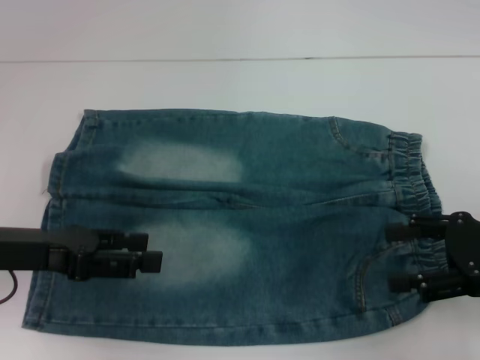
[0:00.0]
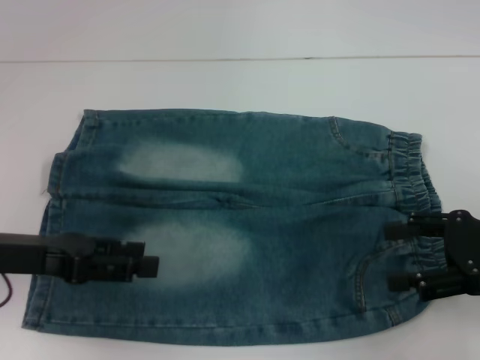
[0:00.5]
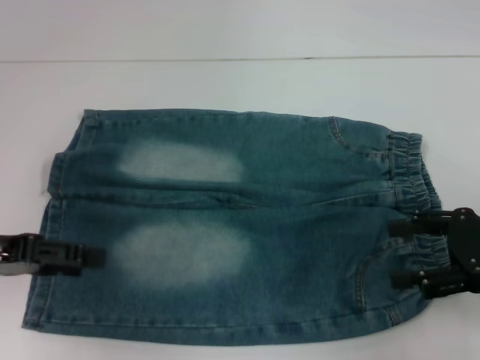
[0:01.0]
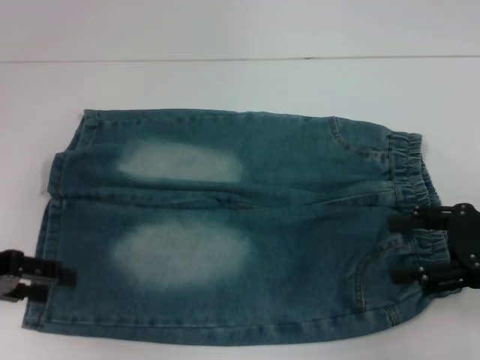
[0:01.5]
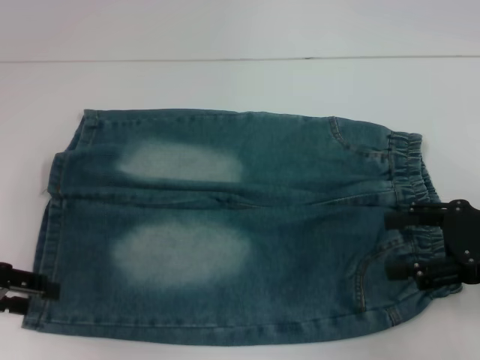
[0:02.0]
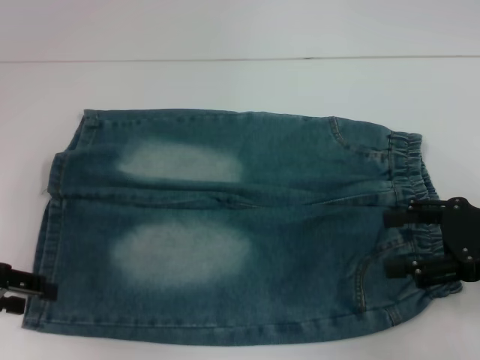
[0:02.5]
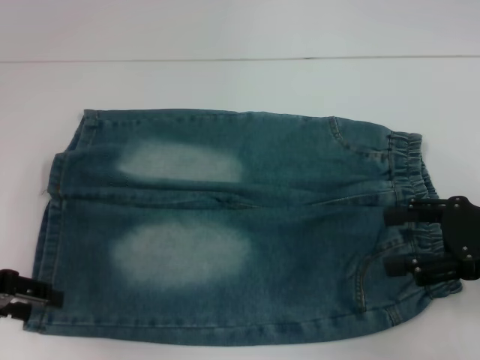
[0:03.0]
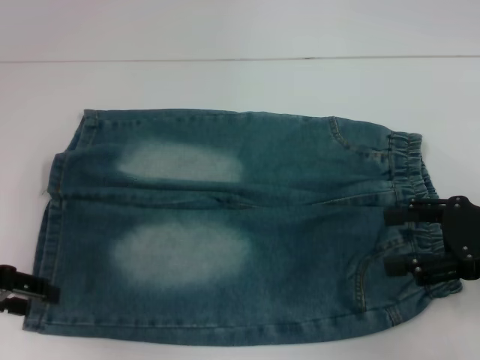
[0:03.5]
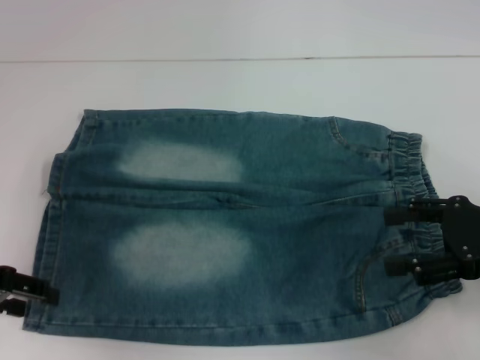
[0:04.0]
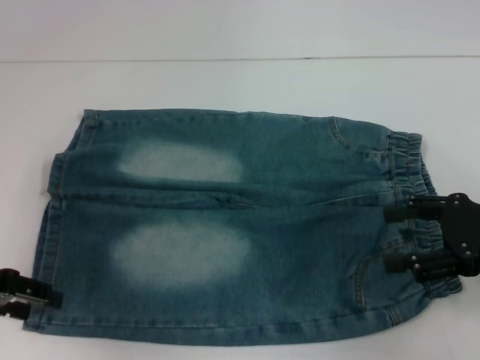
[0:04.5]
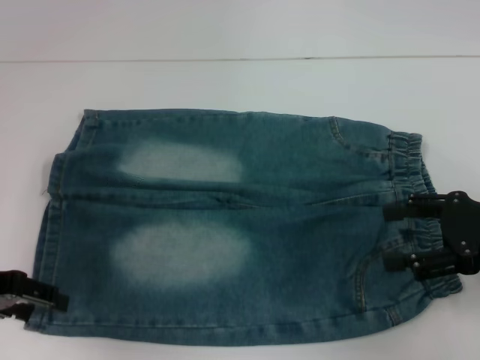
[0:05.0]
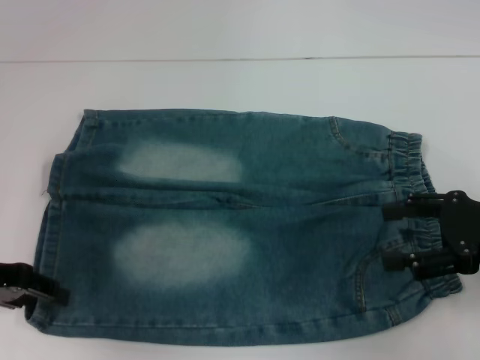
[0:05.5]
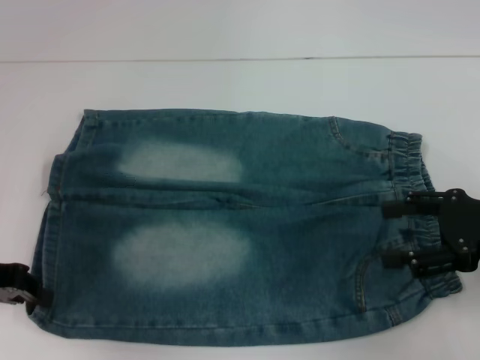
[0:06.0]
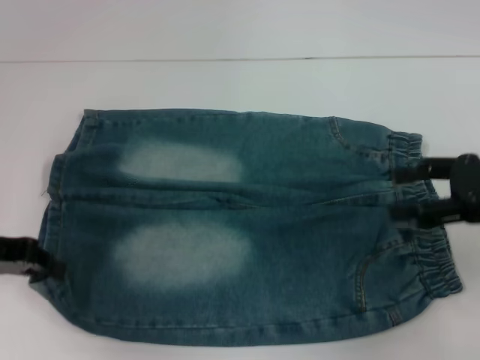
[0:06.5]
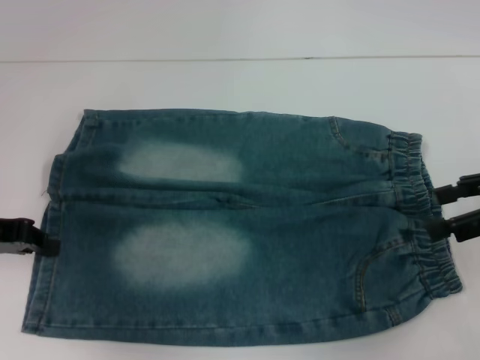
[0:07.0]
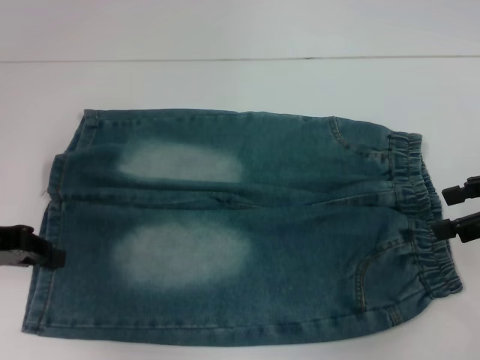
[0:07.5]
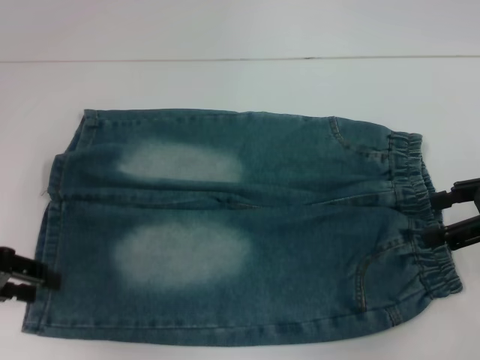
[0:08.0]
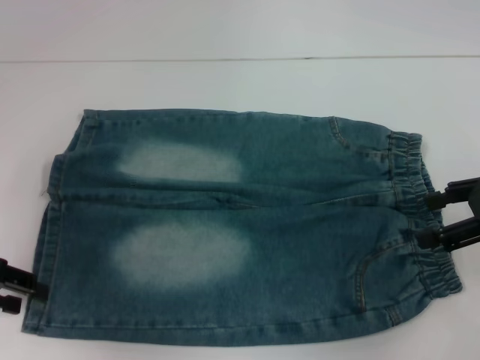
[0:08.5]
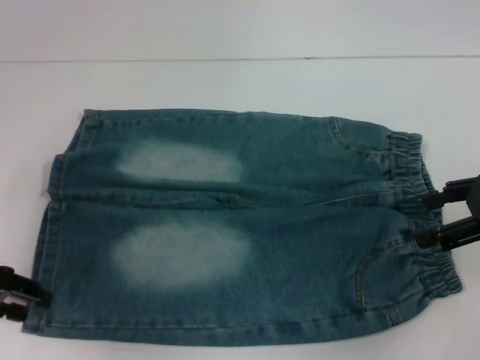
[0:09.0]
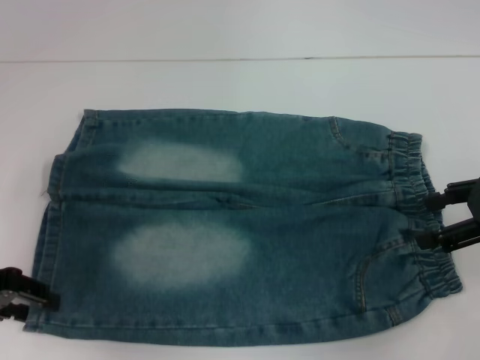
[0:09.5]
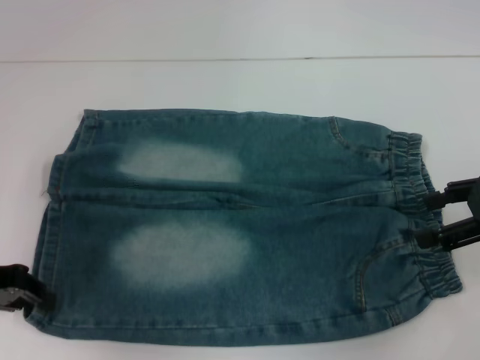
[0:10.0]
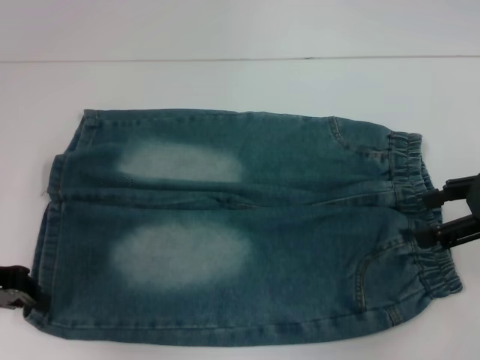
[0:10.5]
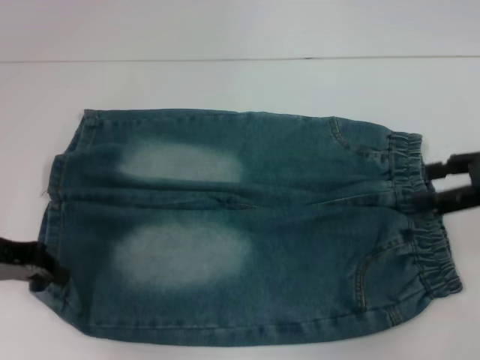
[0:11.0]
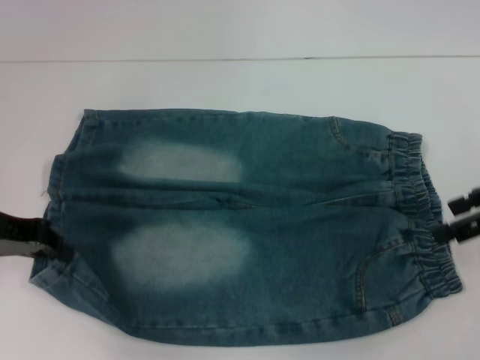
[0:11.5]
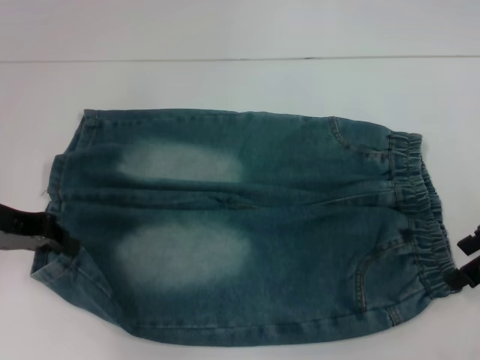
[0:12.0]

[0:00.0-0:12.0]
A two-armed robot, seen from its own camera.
Step, 0:00.0 to 0:10.5: Grab the lower left pant leg with your left hand.
0:00.0 to 0:02.0: The left gripper is displaced to the left by approximately 5 cm.
0:02.0 to 0:04.0: Both grippers stay put.
0:04.0 to 0:06.0: The left gripper closes.
0:06.0 to 0:08.0: The right gripper moves some 5 cm.
0:08.0 to 0:10.0: There are only small adjustments of the grippers.
0:10.0 to 0:12.0: The left gripper moves approximately 5 cm.

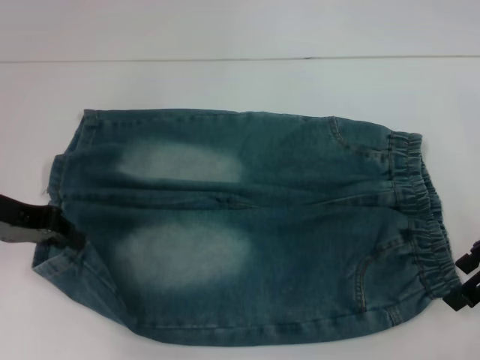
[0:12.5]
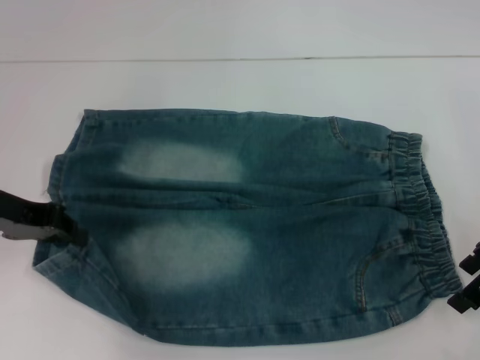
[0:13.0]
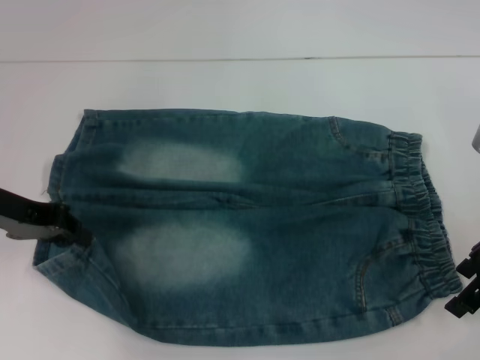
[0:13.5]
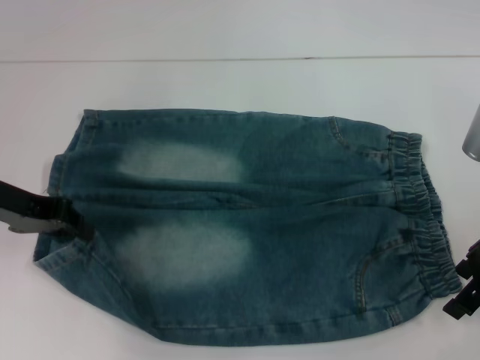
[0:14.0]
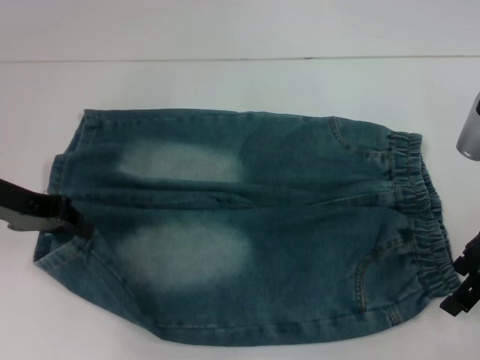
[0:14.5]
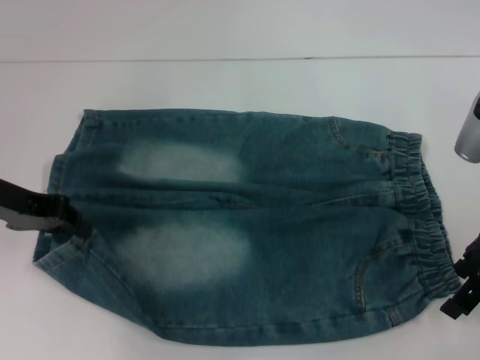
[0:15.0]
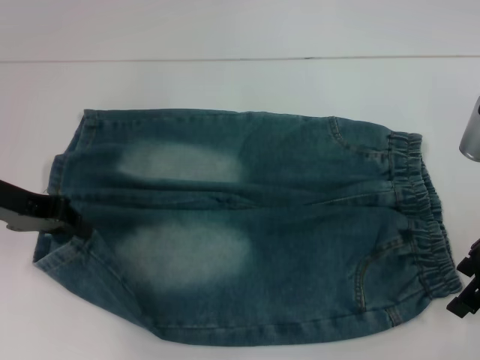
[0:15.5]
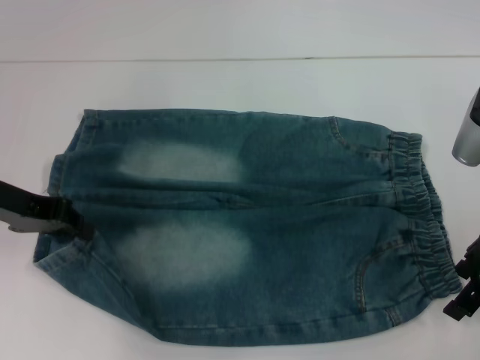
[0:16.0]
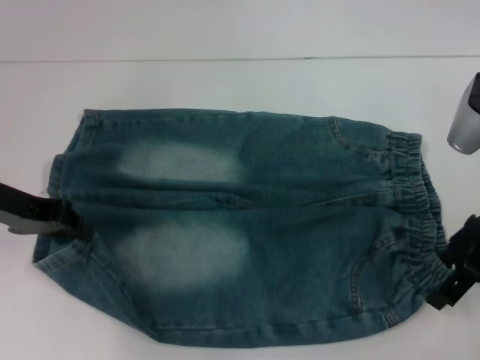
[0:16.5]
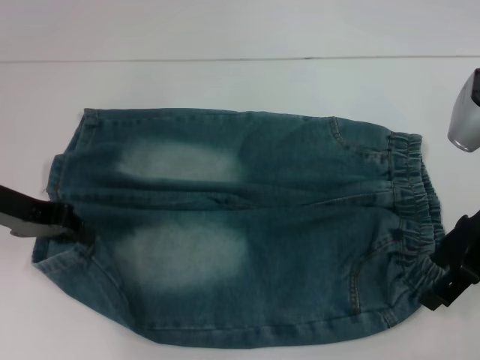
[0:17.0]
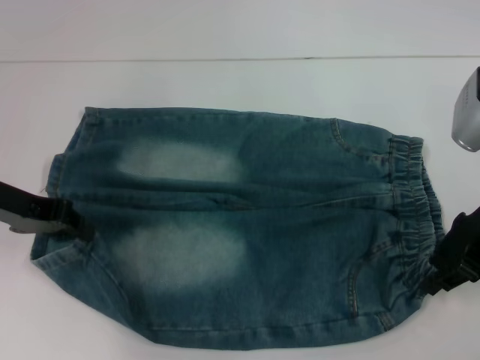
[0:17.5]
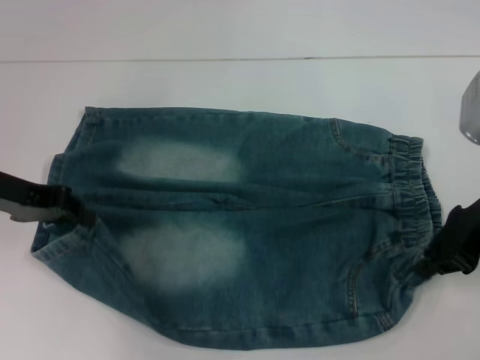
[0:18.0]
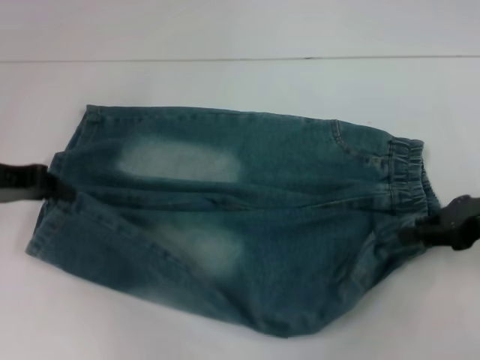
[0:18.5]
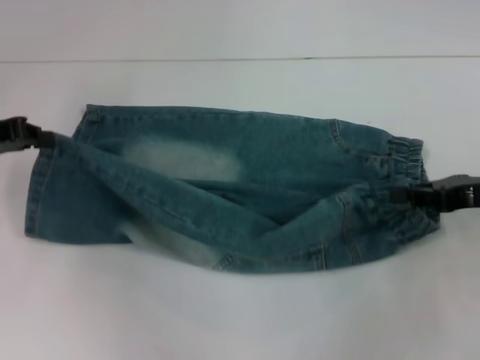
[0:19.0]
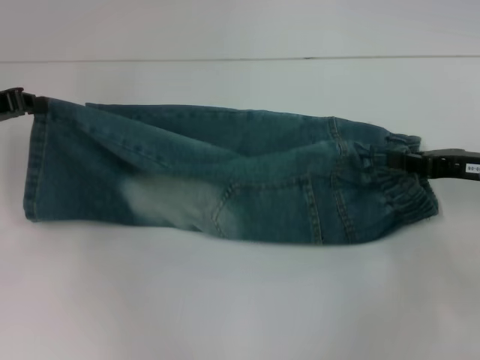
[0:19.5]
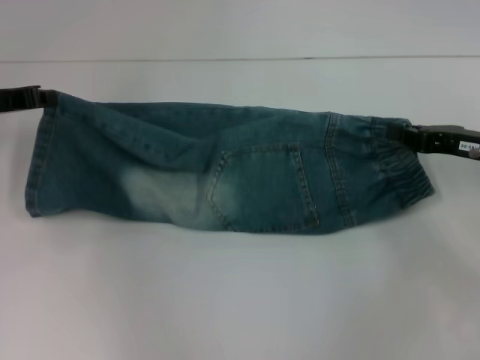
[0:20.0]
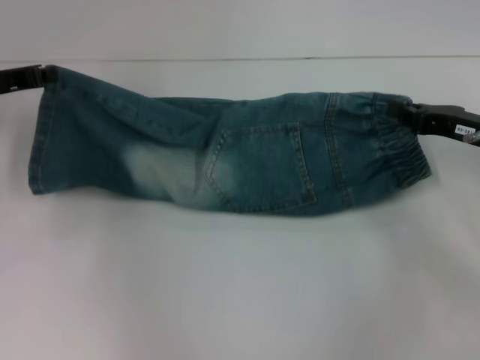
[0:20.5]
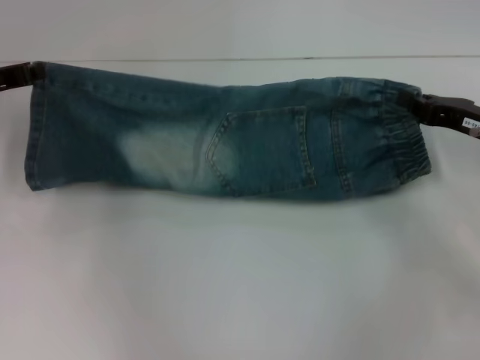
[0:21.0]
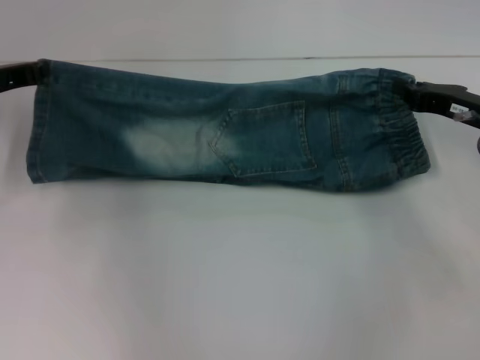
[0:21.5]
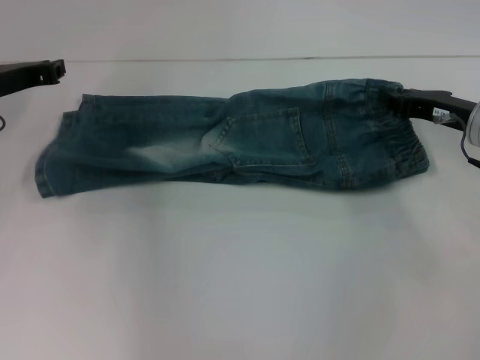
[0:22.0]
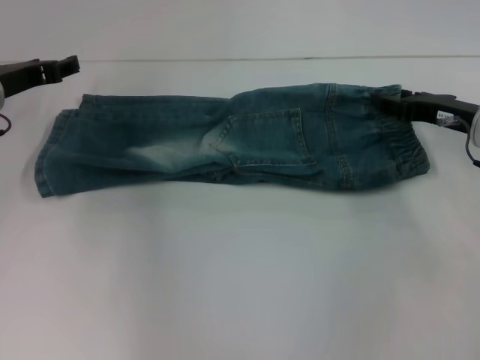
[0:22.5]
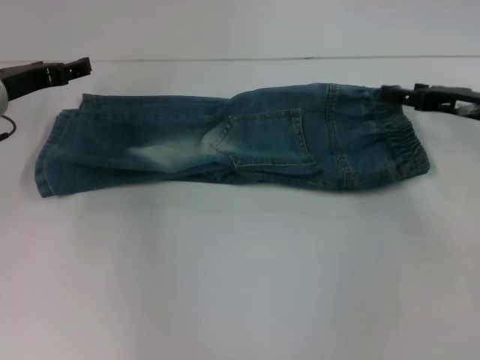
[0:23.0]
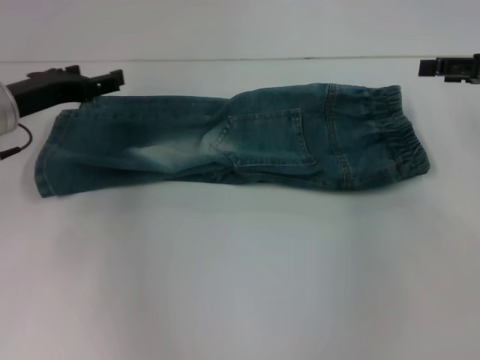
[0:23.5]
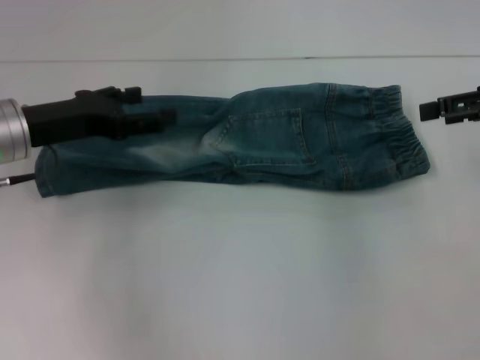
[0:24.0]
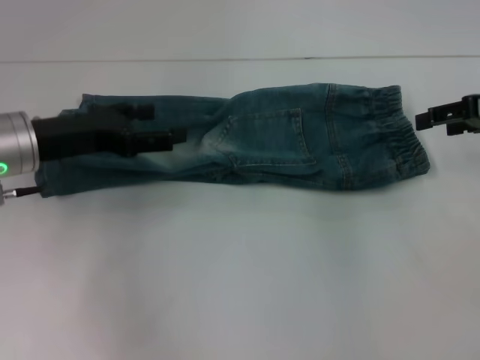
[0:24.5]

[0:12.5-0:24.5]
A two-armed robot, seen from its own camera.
Step, 0:12.5 to 0:18.0: Hold the lower right waistband with your right hand.
Step, 0:18.5 to 0:22.5: Fold upward with your right hand.
0:12.5 to 0:14.5: The grippers stay close to where they were, moving slightly.
0:14.5 to 0:16.5: The two grippers keep their place.
0:16.5 to 0:18.5: The right gripper shifts approximately 5 cm to the right, and closes up.
0:18.5 to 0:20.5: The left gripper moves forward, some 5 cm, while the right gripper changes place by about 5 cm.
0:20.5 to 0:22.5: The right gripper opens; the left gripper opens its fingers.
0:22.5 to 0:24.5: The right gripper is displaced upward by roughly 10 cm, and opens; the left gripper shifts approximately 5 cm backward, and opens its fingers.

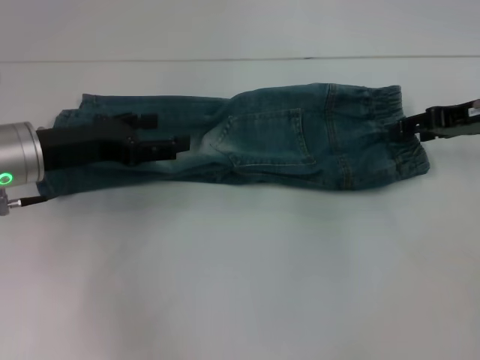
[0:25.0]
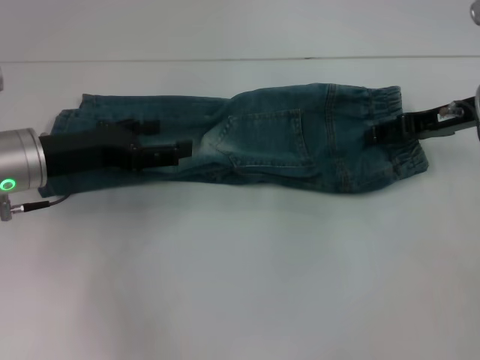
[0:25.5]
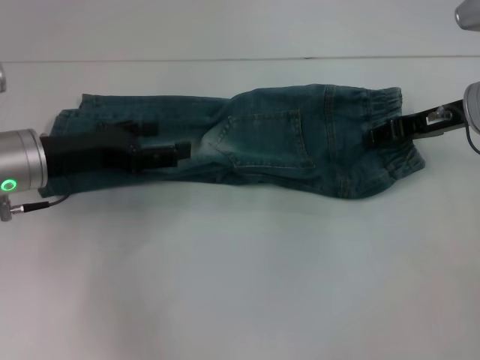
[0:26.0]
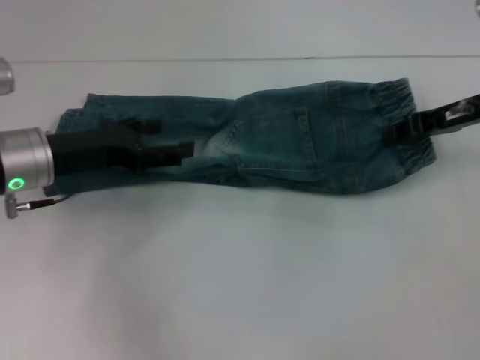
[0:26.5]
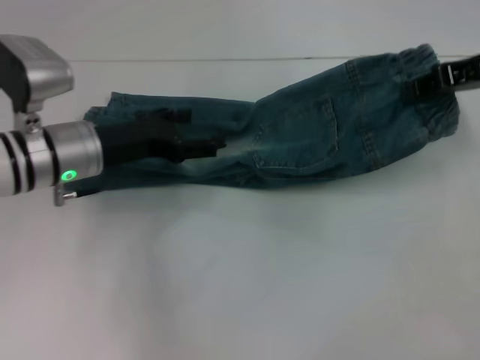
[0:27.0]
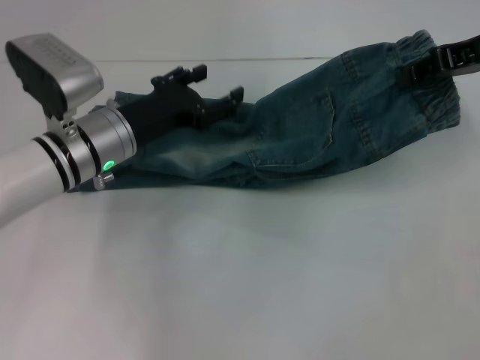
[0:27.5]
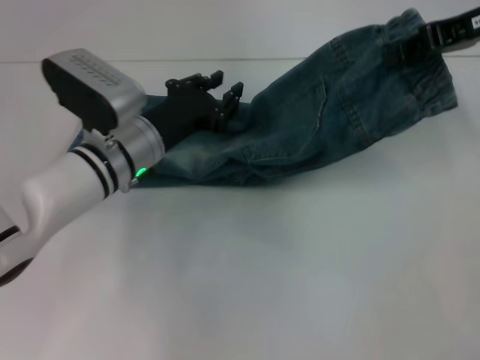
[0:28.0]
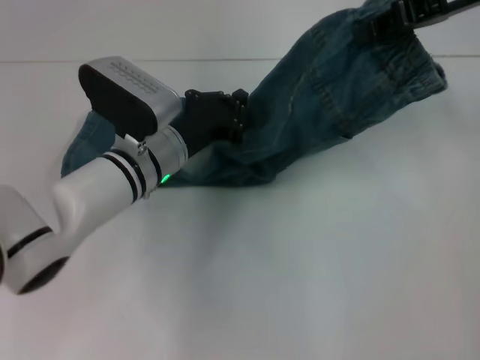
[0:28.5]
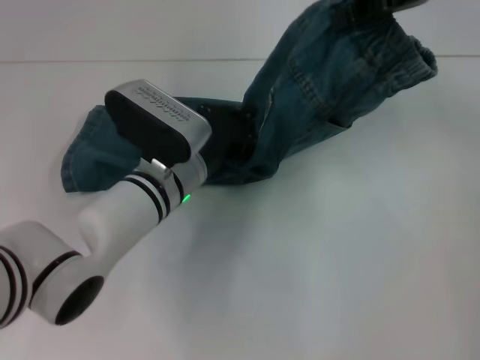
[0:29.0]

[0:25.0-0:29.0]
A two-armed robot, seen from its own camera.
0:25.0 to 0:27.0: The left gripper shifts by about 5 cm. Meanwhile the right gripper goes some 5 cm upward, and closes up.
0:27.0 to 0:29.0: The right gripper travels upward and to the left by some 10 cm, while the left gripper travels to the right and downward by roughly 10 cm, and closes.
